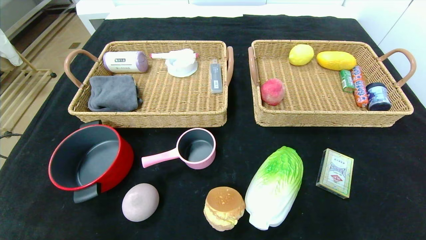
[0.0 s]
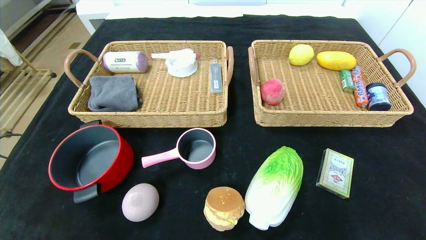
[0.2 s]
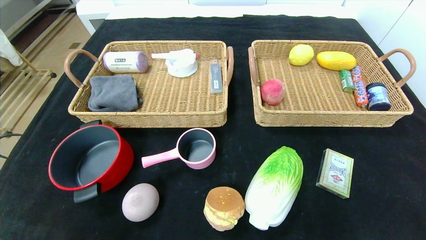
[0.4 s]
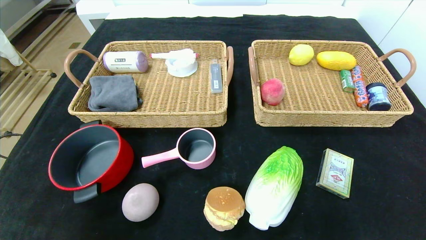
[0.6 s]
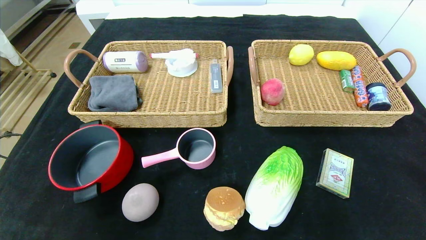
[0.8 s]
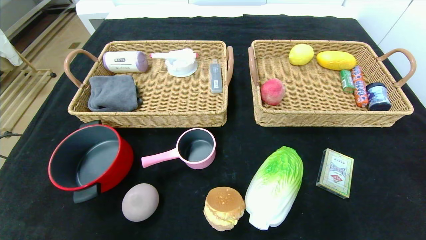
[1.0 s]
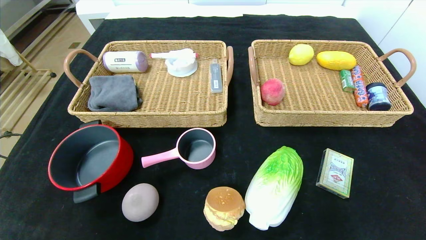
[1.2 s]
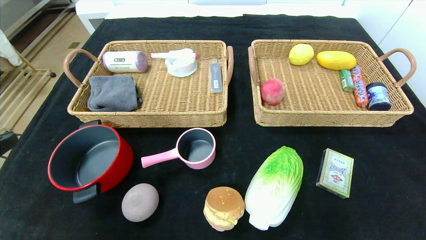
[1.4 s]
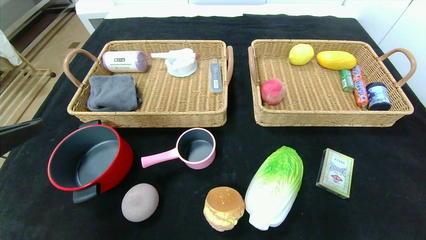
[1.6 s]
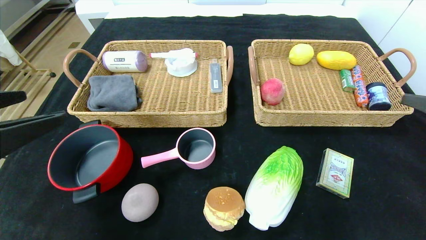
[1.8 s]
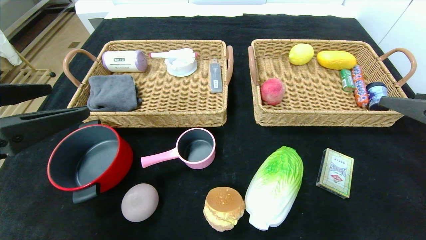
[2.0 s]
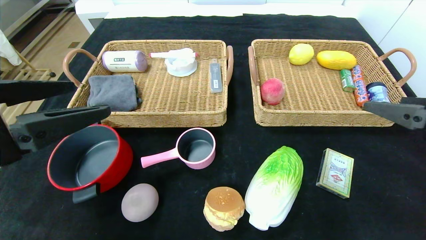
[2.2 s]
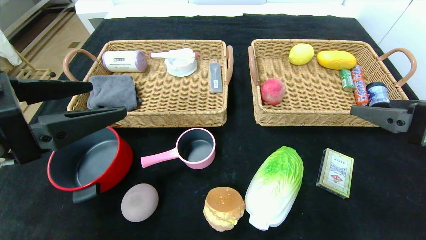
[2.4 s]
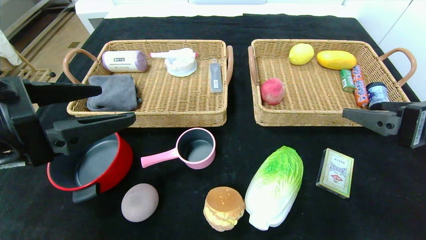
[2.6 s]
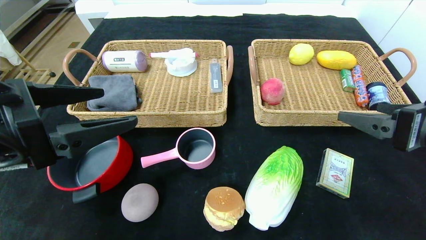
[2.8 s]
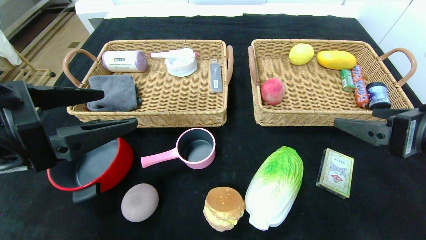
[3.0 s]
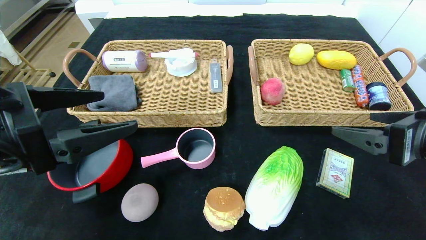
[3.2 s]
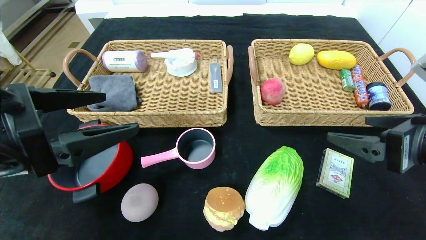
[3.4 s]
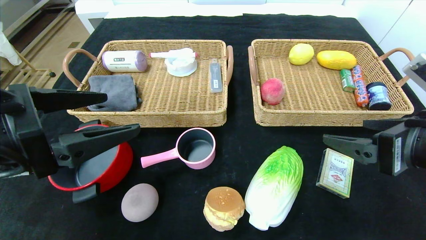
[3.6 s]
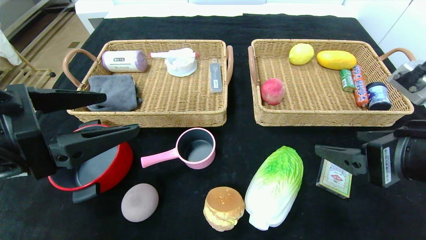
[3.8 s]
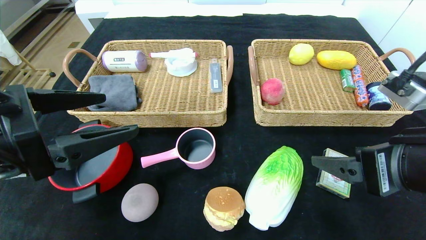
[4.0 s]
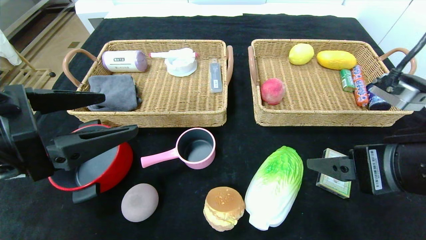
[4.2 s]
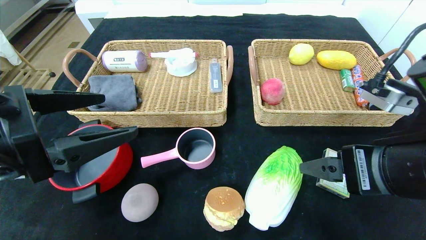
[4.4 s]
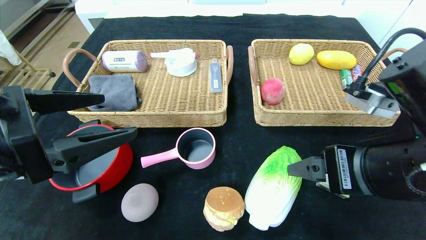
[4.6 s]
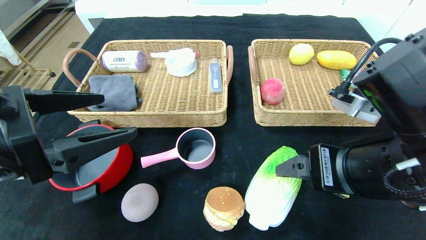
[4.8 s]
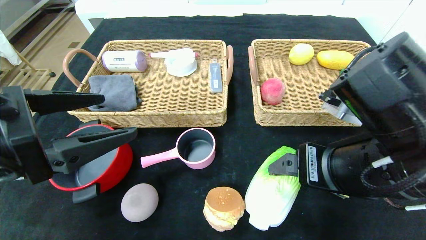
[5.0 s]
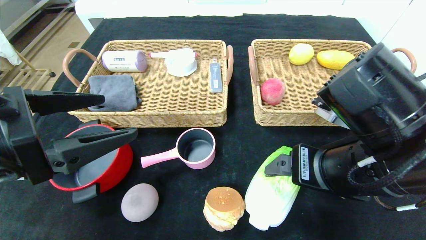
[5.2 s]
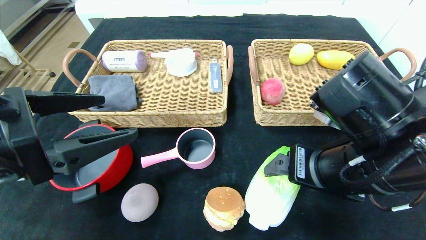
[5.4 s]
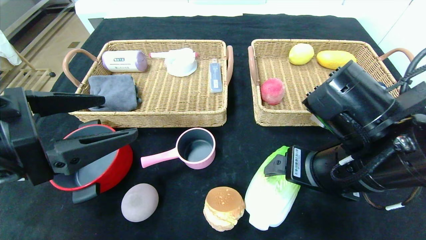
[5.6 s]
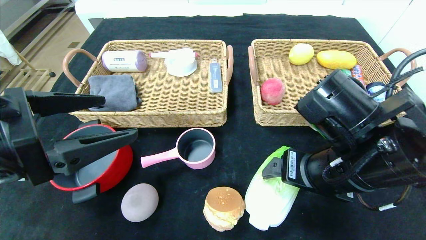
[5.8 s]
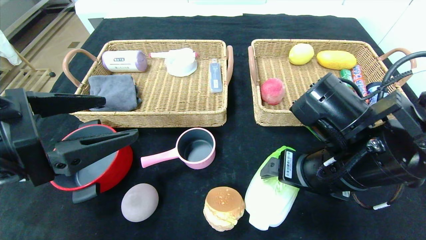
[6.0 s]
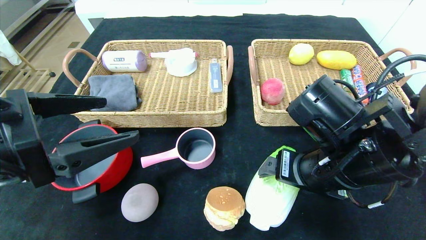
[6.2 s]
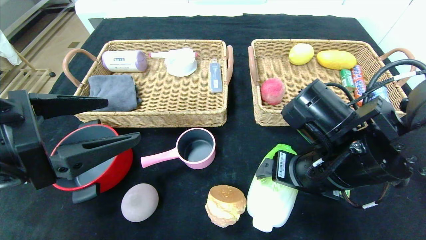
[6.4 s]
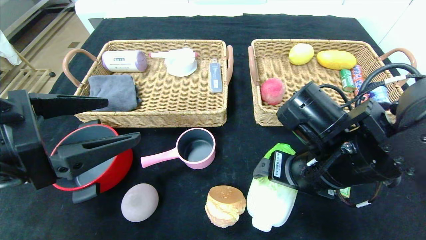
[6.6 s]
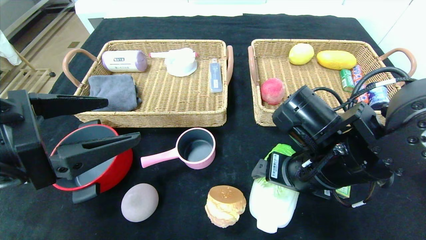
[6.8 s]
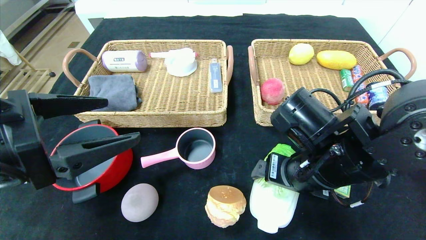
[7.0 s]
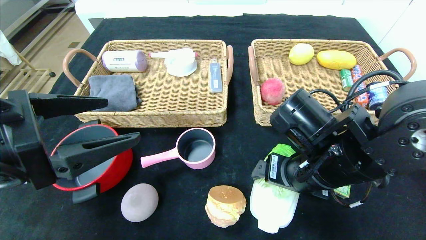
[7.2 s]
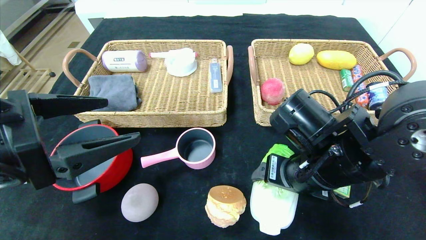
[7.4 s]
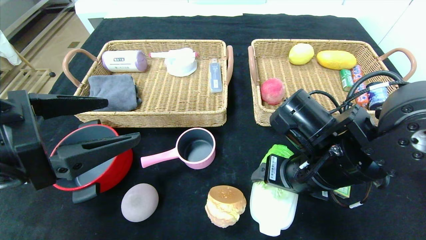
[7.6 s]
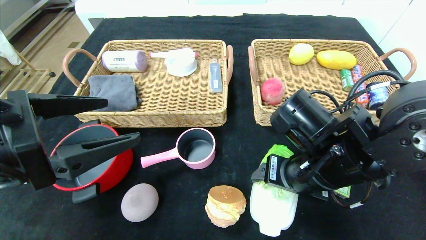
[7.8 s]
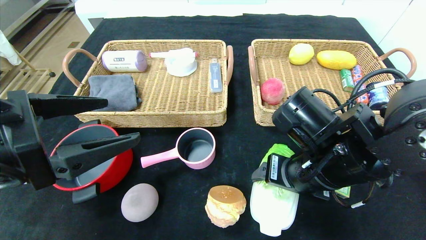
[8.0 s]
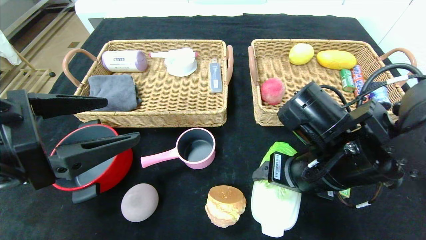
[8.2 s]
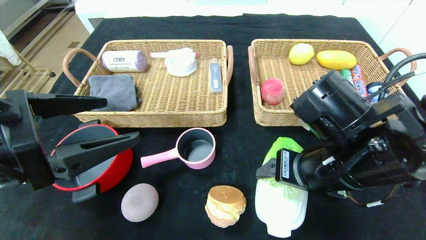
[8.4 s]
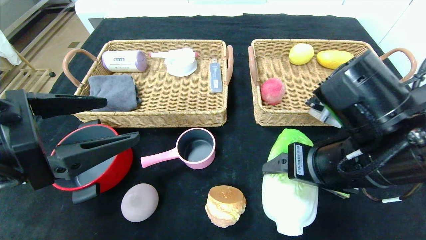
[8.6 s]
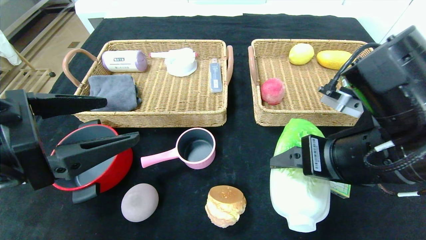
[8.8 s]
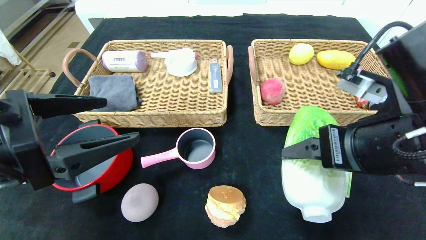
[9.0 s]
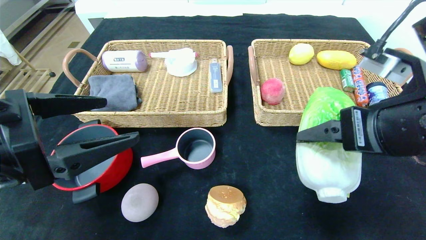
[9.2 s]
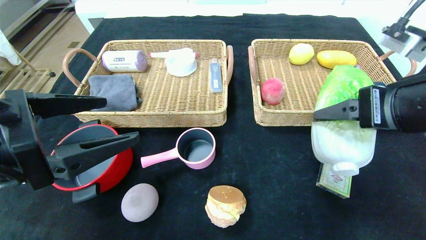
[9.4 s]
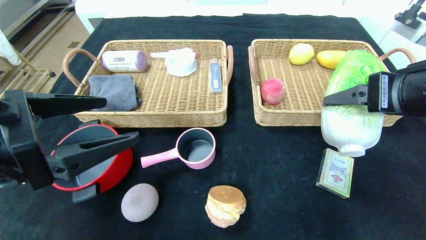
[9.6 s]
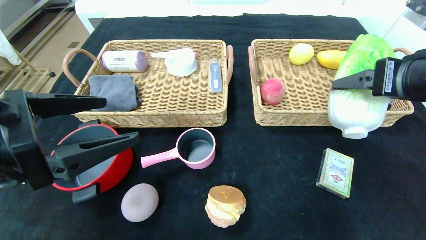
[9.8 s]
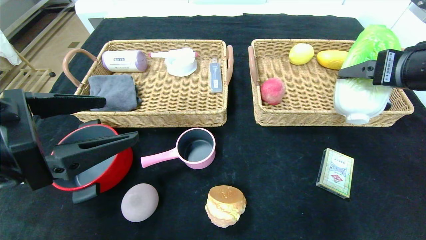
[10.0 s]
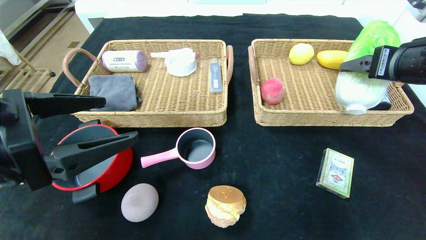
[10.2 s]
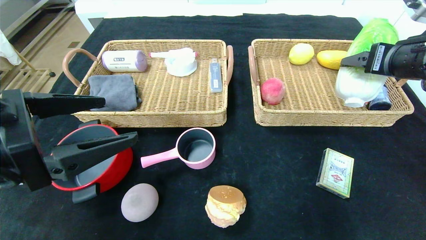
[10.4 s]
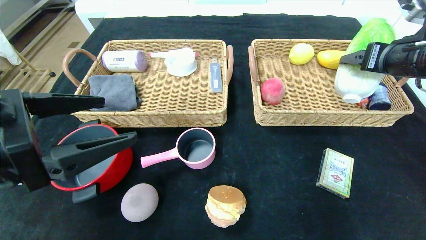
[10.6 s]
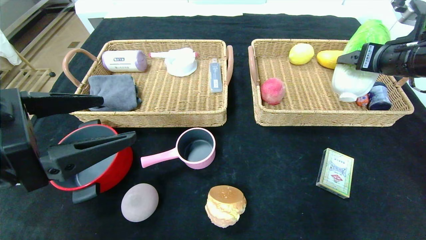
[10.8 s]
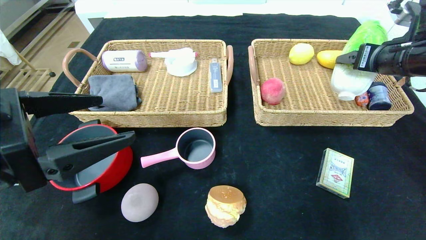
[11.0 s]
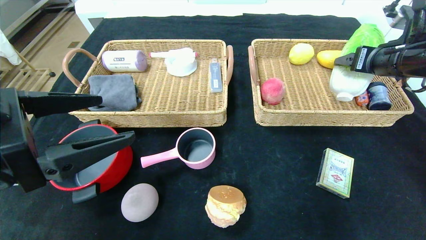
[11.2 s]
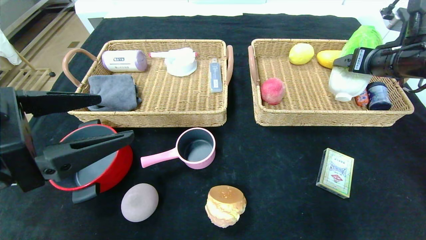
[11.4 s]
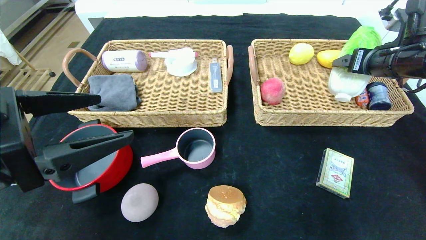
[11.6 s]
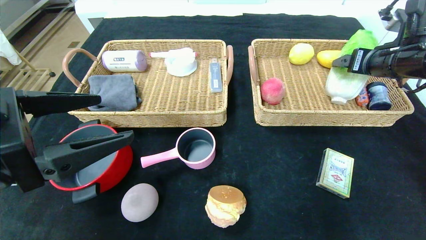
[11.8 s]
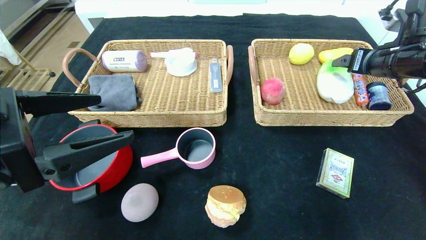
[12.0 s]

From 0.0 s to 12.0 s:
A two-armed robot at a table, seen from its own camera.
From 0.0 s to 1.6 s: The grippers both shift upward and forward by roughly 25 cm.
From 1.6 s to 3.0 s: The left gripper goes some 5 cm forward. Meanwhile the right gripper goes some 10 cm to the left and forward.
From 3.0 s to 4.4 s: The right gripper moves to the left, approximately 10 cm.
From 4.4 s to 6.0 s: The right gripper shifts roughly 5 cm forward.
From 6.0 s to 7.6 s: The grippers make only small movements.
From 7.6 s to 9.0 s: The right gripper travels upward and to the right by roughly 10 cm.
From 9.0 s to 10.4 s: The right gripper goes roughly 15 cm to the right, forward and upward.
From 10.4 s to 12.0 s: The right gripper shifts some 5 cm forward.

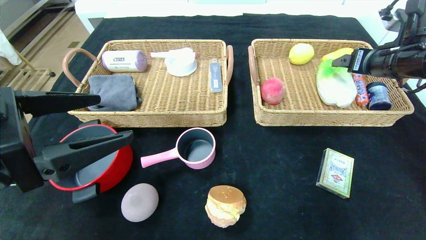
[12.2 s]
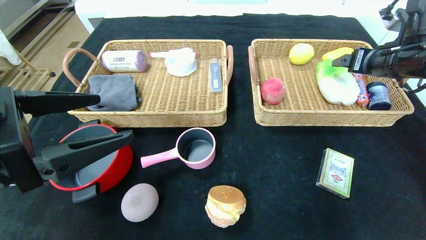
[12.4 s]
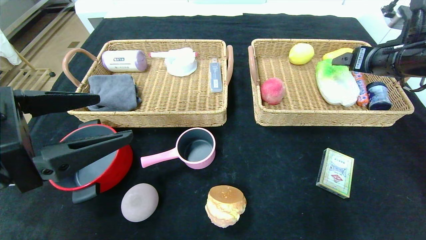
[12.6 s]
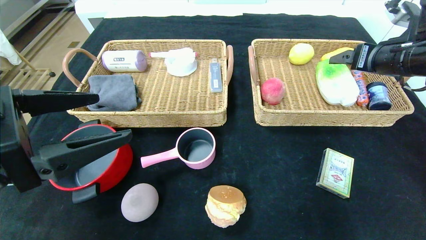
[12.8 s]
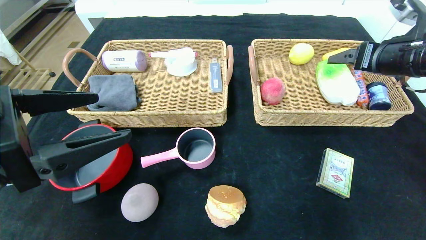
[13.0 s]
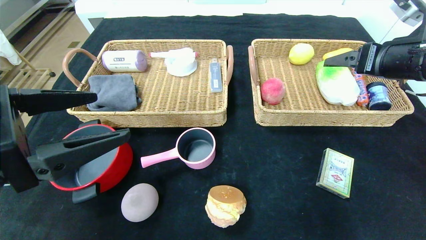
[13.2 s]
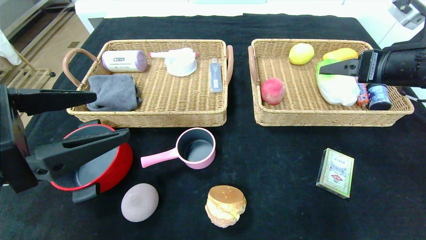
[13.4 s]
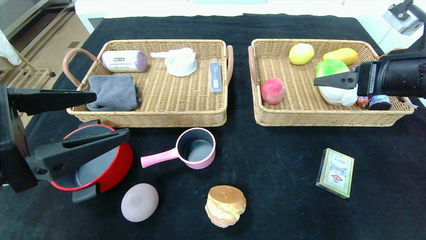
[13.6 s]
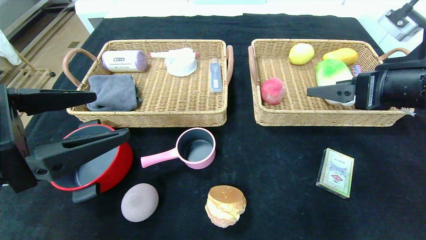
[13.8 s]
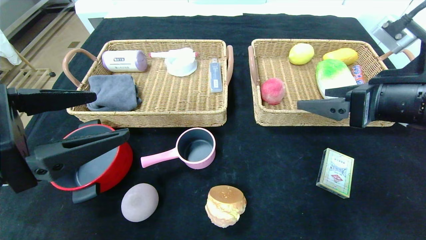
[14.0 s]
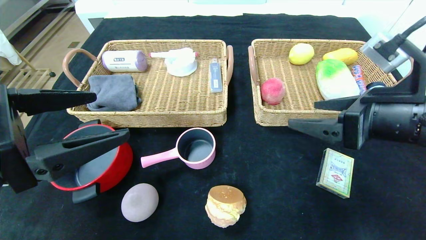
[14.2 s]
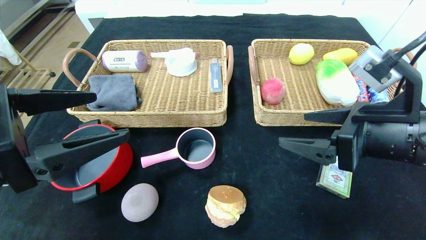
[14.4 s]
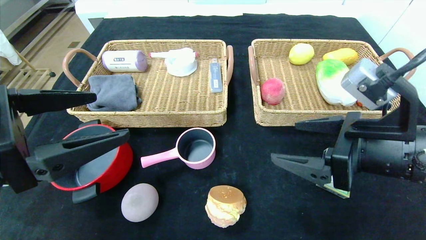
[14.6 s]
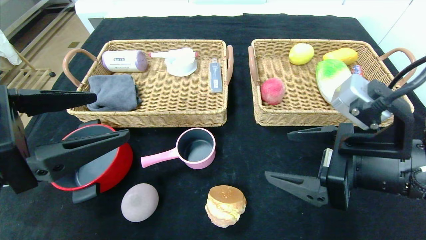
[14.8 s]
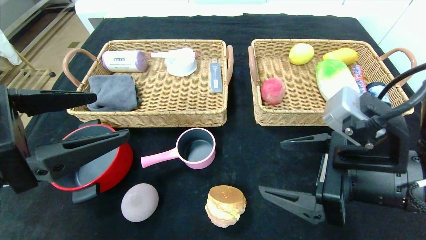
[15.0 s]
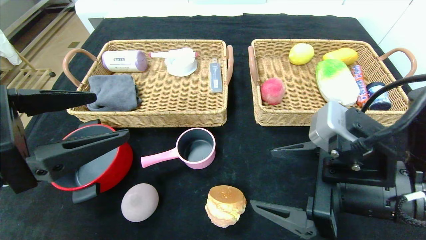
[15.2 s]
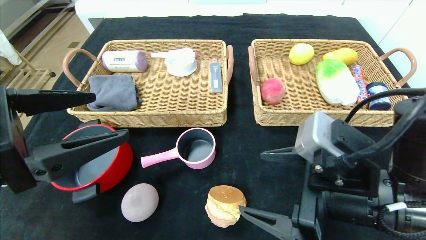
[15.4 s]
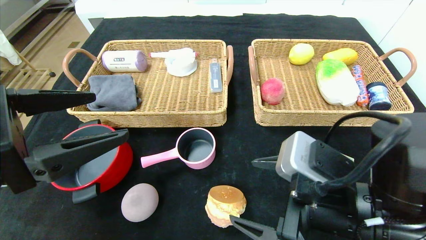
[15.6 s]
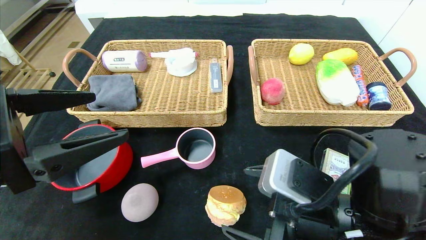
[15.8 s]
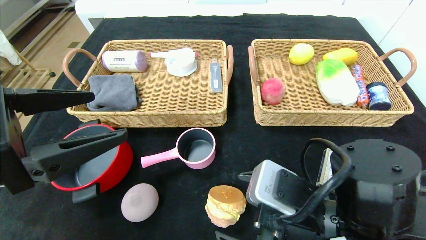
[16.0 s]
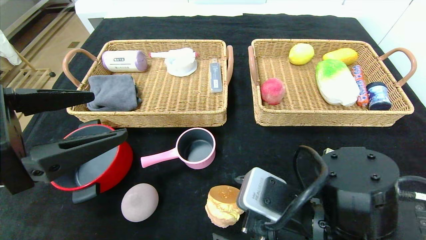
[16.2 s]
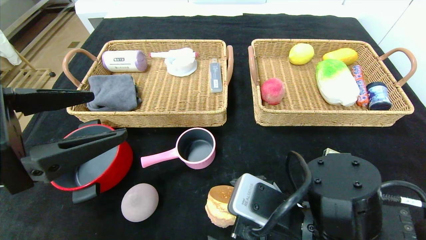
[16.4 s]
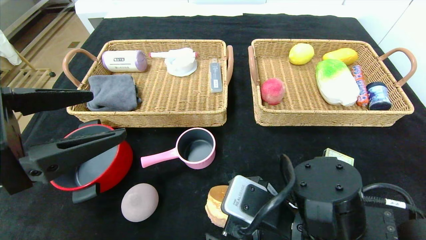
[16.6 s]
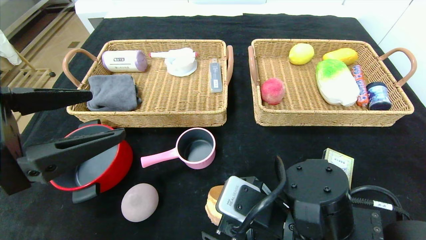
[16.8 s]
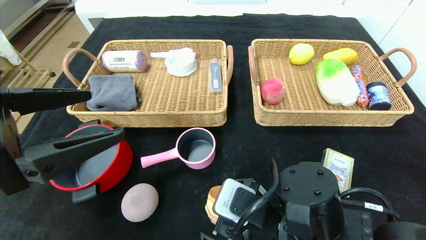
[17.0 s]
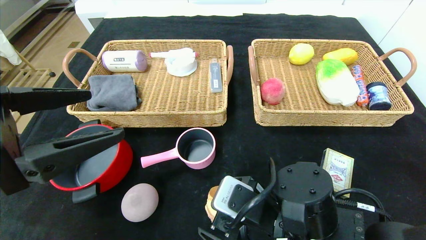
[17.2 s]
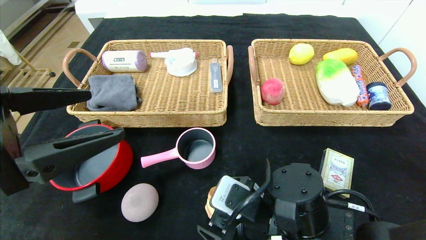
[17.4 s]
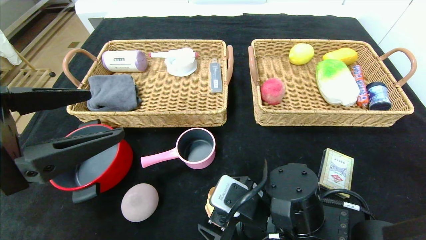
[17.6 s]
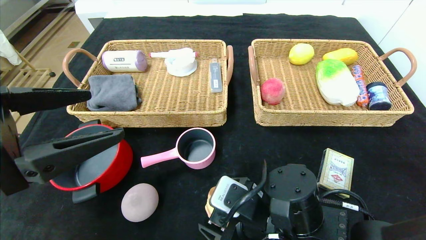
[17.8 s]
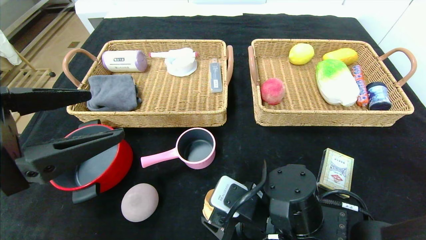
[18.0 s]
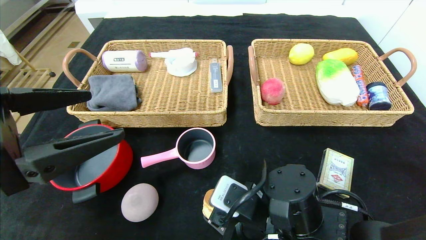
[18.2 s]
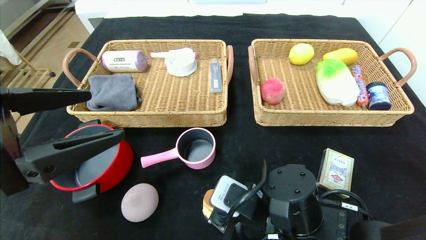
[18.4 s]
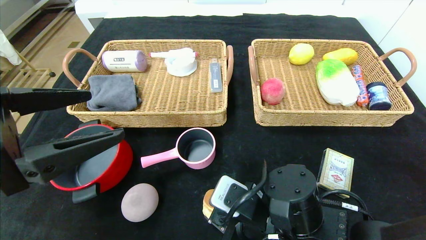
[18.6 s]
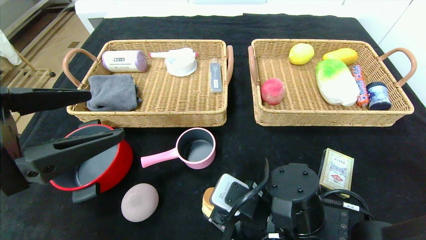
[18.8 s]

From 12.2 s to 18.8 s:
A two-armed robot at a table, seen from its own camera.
From 12.2 s to 13.8 s: The right gripper is displaced backward and to the left by some 15 cm.
From 13.8 s to 15.4 s: The right gripper shifts approximately 15 cm to the left, downward and backward.
From 15.4 s to 17.2 s: The right gripper is displaced downward and to the left by approximately 10 cm.
From 17.2 s to 18.8 s: The right gripper closes its fingers.
